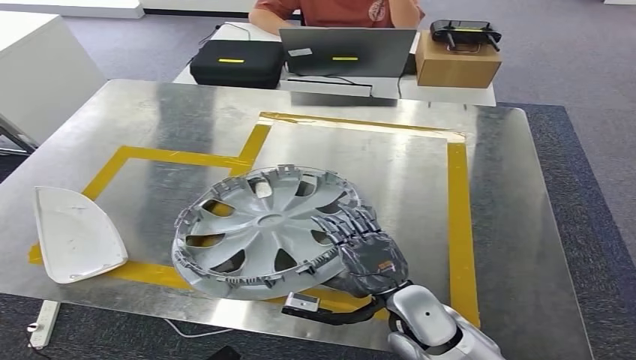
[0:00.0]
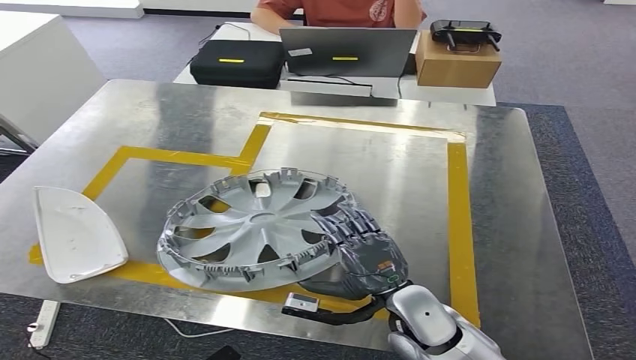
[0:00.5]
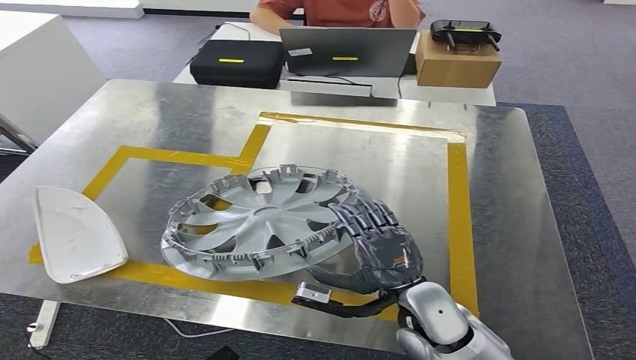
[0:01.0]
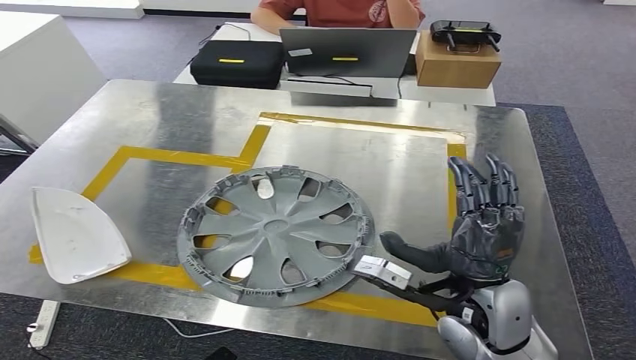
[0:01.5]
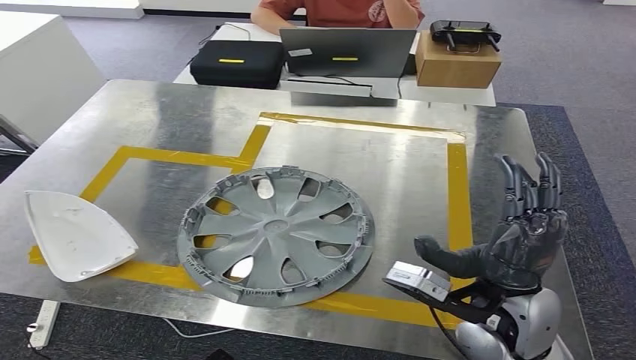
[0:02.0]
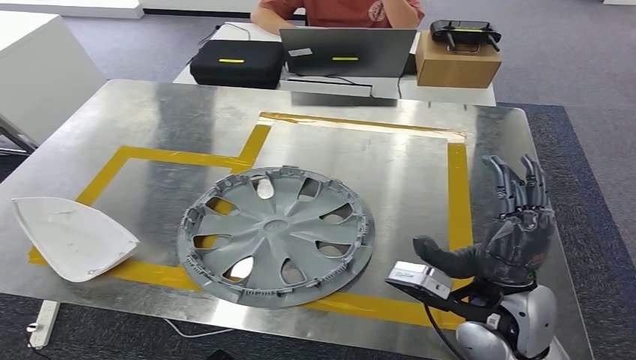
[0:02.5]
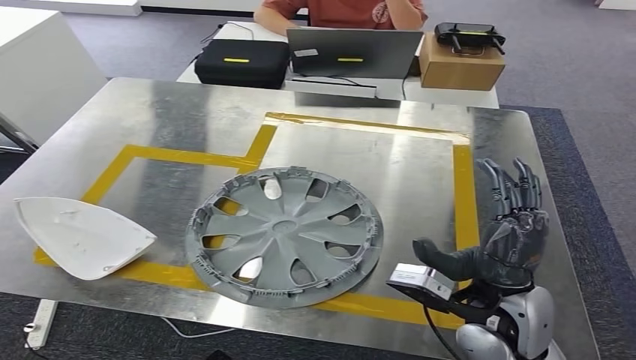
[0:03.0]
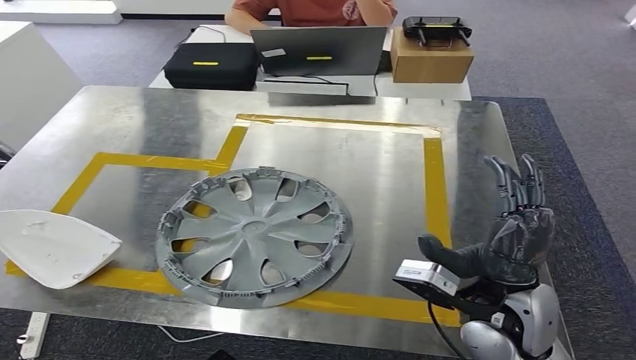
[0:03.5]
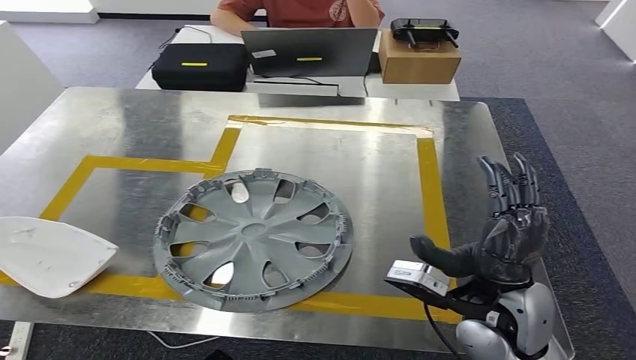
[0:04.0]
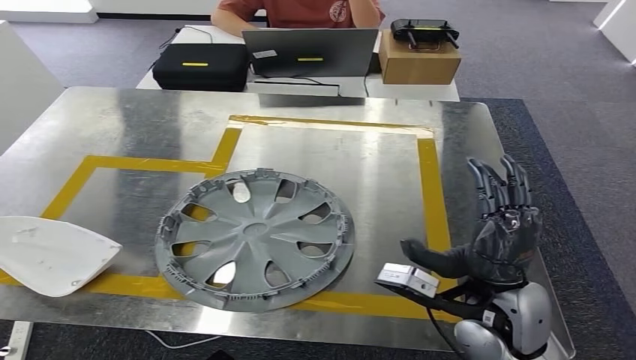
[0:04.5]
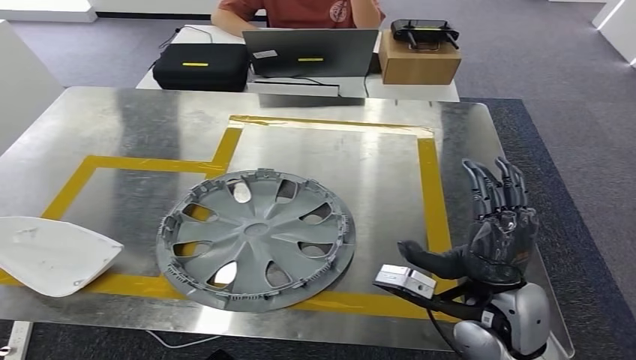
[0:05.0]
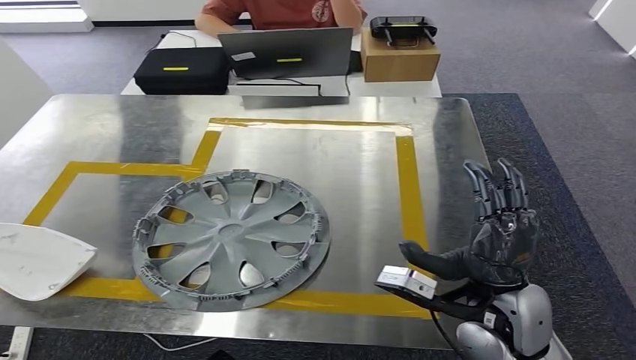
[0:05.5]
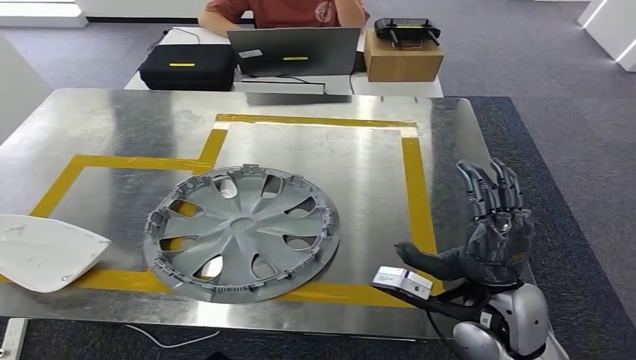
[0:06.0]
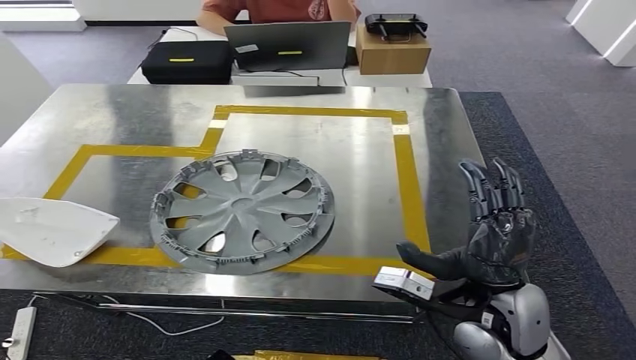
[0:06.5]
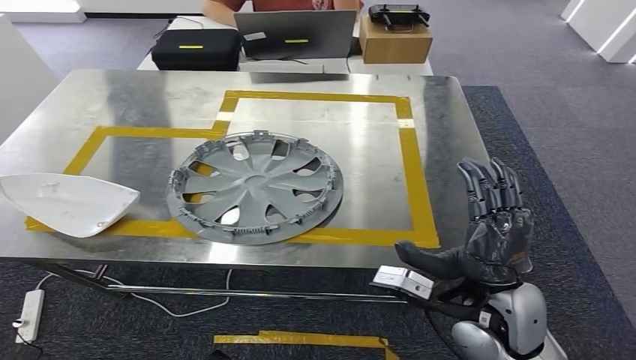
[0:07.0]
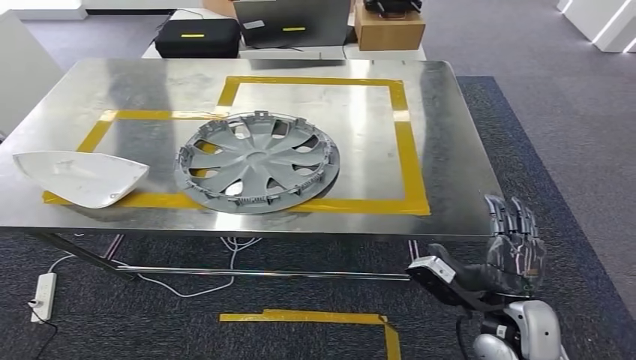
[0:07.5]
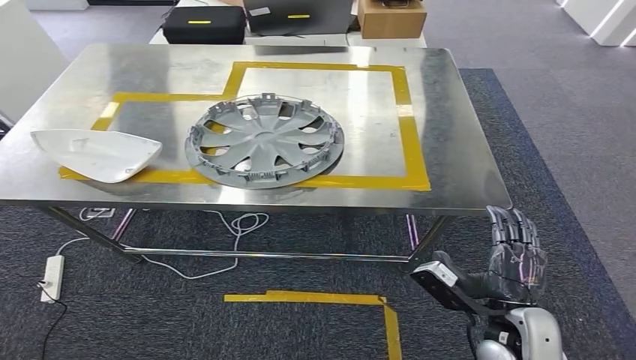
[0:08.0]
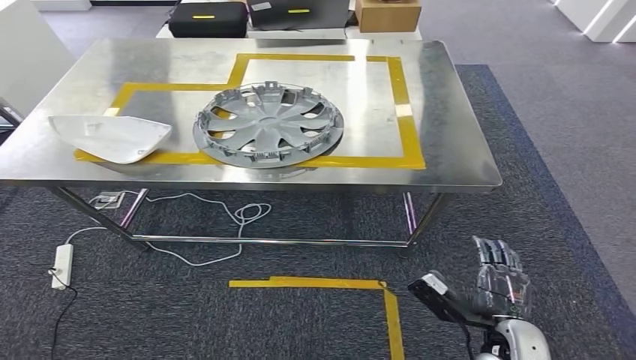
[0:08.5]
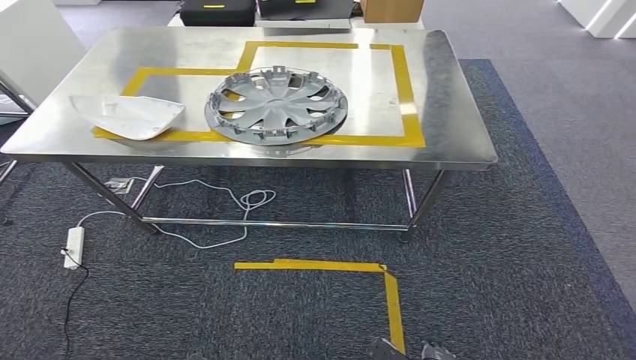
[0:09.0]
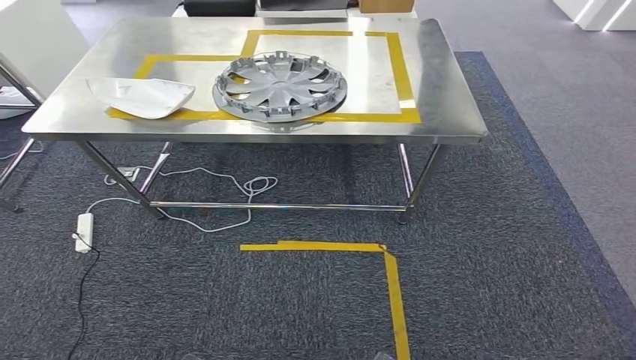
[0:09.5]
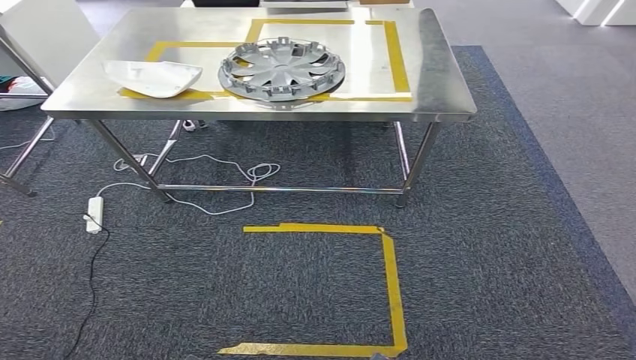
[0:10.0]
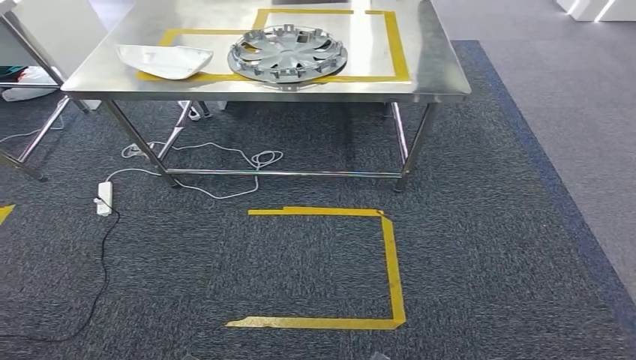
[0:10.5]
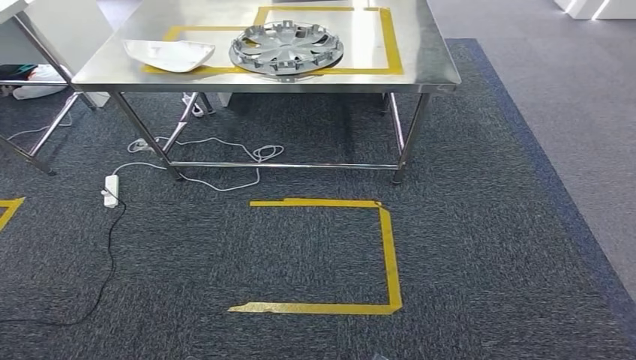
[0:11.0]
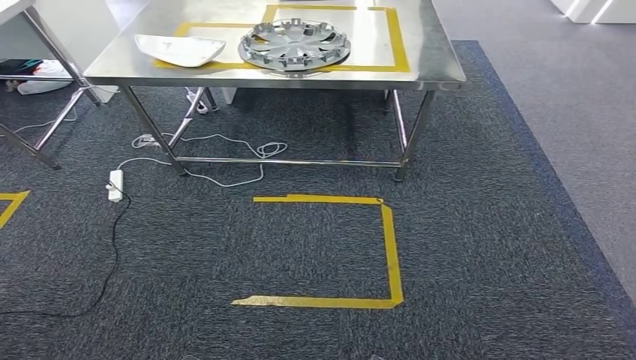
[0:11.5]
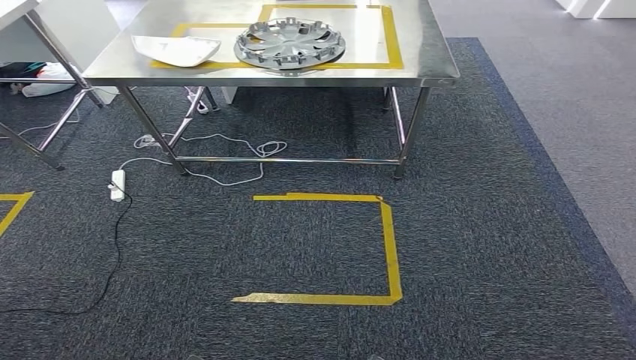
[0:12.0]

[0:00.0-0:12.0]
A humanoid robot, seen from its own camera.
Step, 0:00.0 to 0:08.5: Insert the small parts into the corresponding holes on the workbench.
0:00.0 to 0:02.0: The right hand heads upward and to the right, covering about 15 cm.

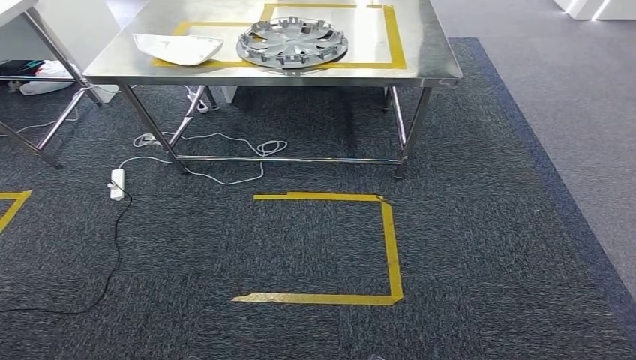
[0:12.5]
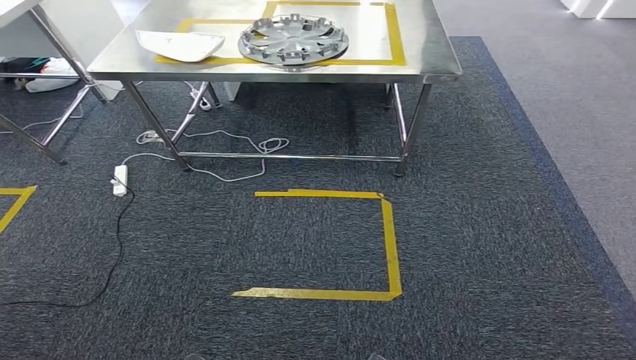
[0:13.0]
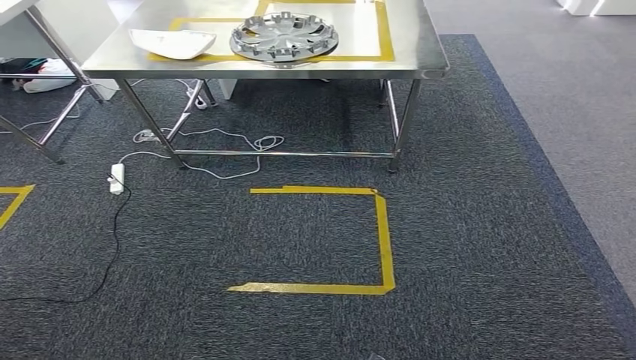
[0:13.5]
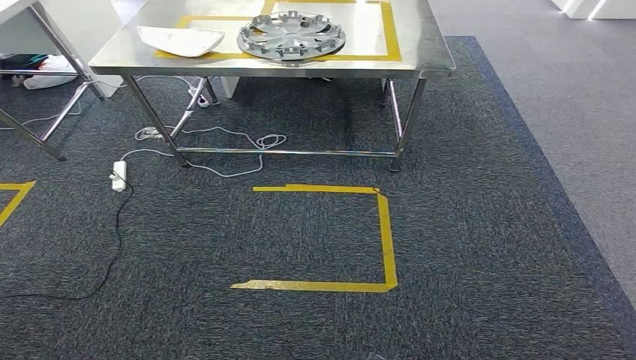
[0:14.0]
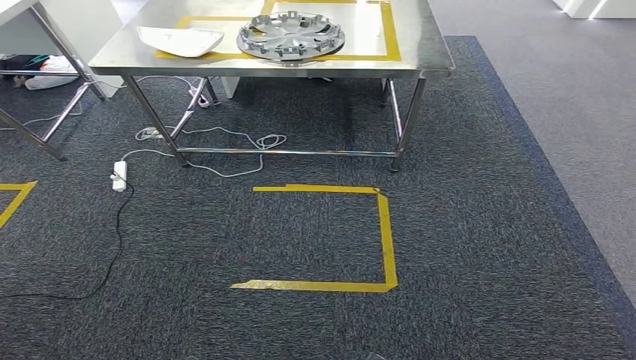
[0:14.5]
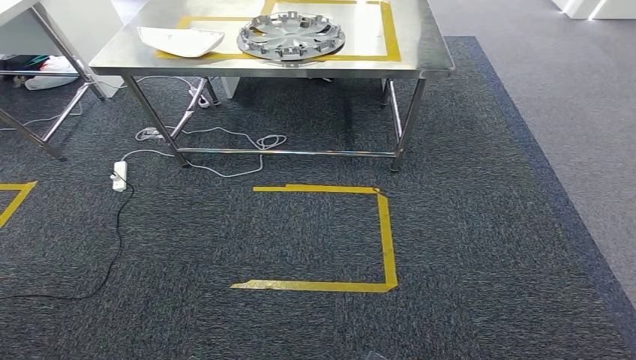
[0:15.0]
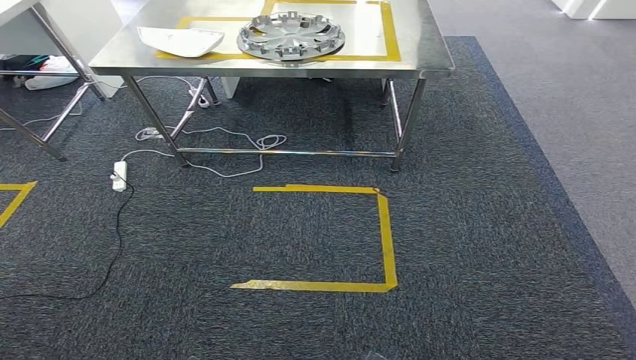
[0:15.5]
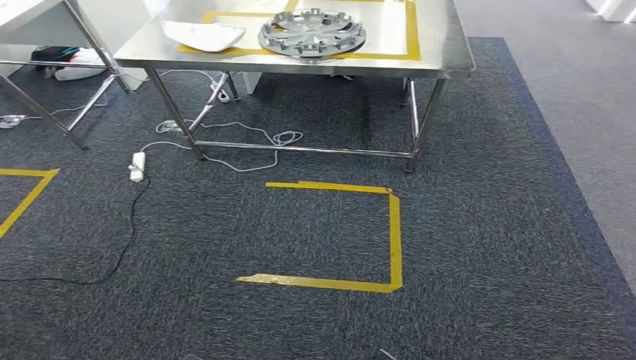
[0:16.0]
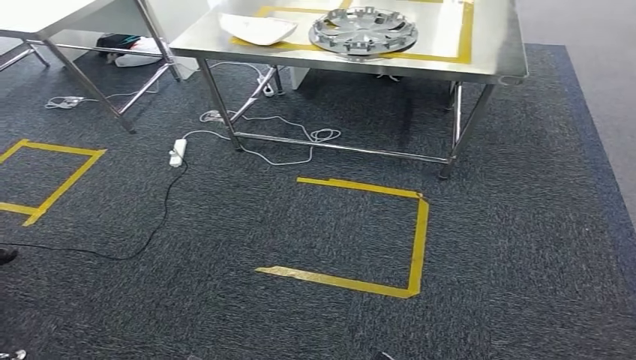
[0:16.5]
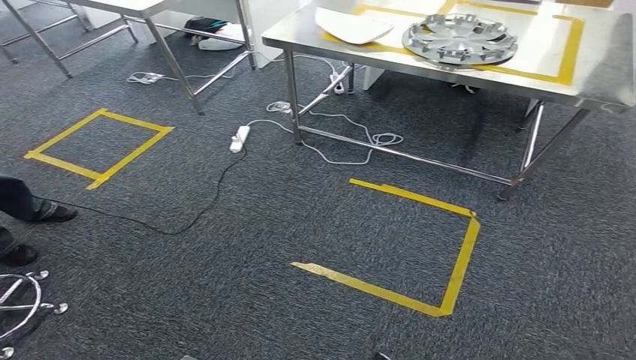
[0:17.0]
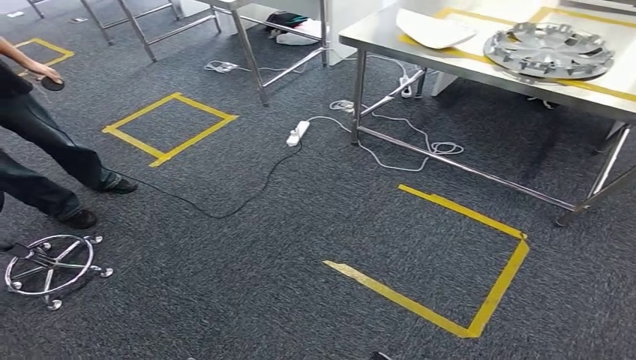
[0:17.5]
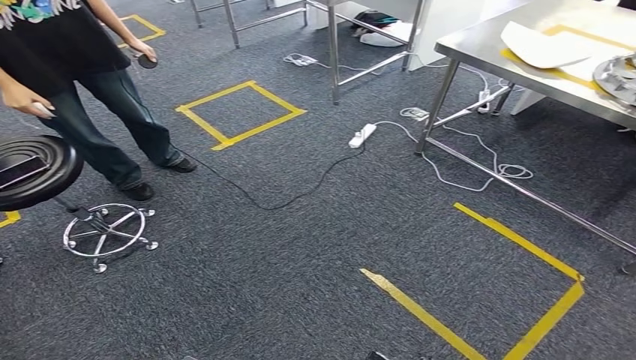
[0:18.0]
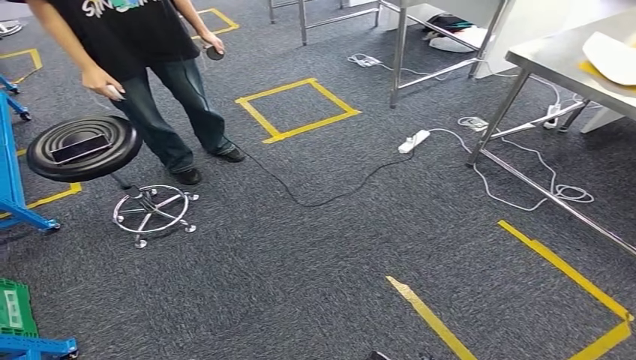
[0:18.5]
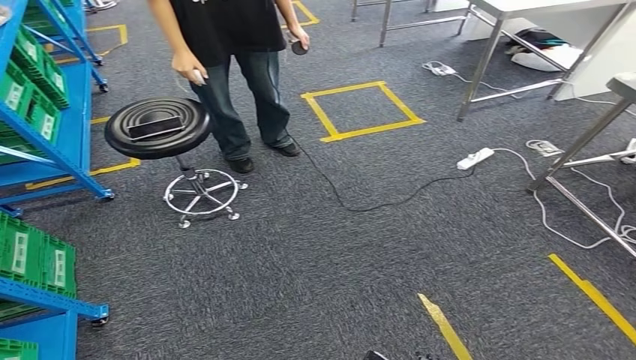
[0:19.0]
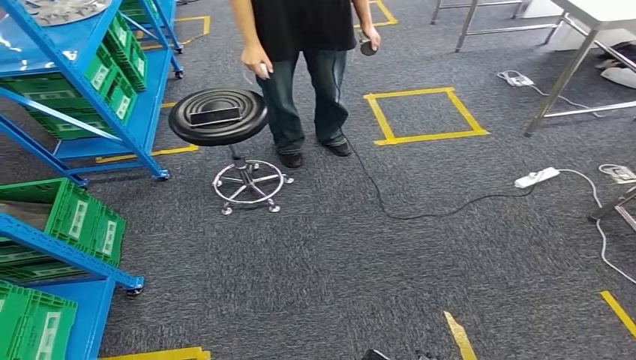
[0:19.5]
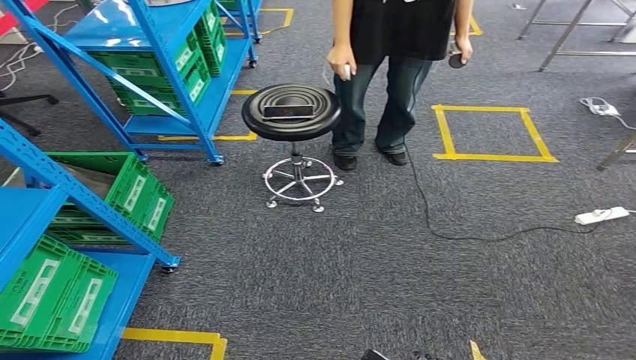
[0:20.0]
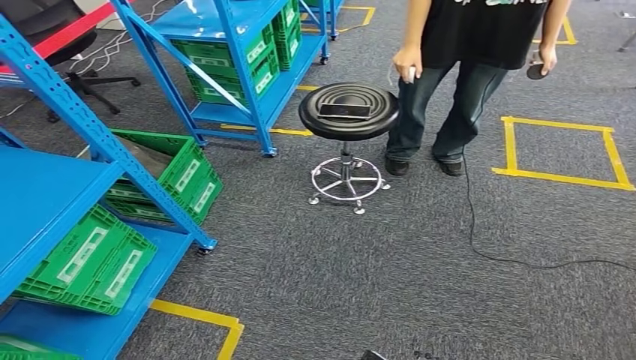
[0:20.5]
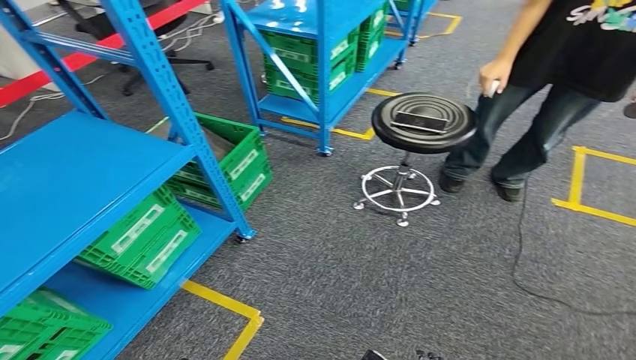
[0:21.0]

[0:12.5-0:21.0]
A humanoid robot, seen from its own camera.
0:12.5 to 0:14.5: The two hands keep their place.
